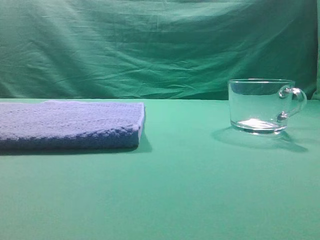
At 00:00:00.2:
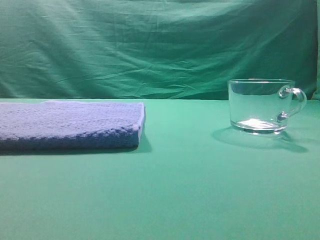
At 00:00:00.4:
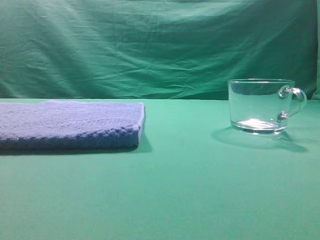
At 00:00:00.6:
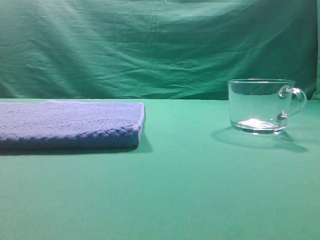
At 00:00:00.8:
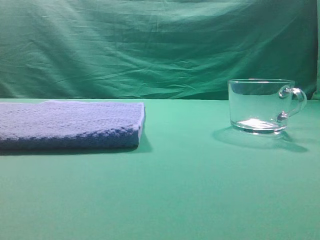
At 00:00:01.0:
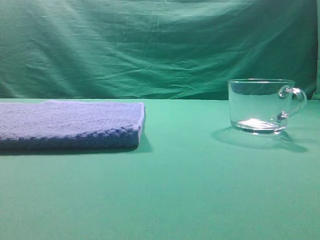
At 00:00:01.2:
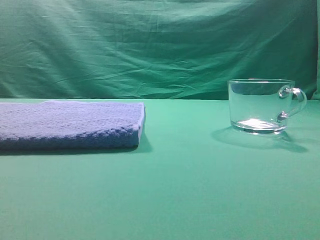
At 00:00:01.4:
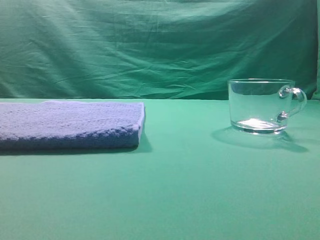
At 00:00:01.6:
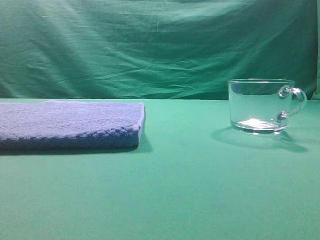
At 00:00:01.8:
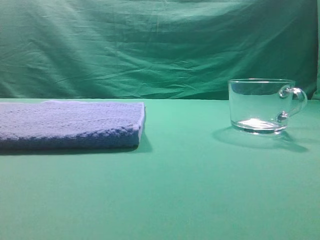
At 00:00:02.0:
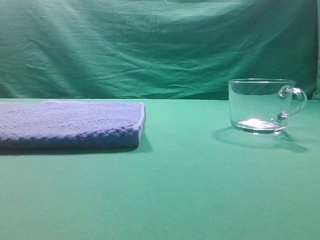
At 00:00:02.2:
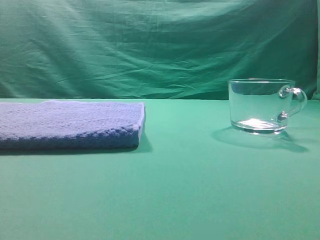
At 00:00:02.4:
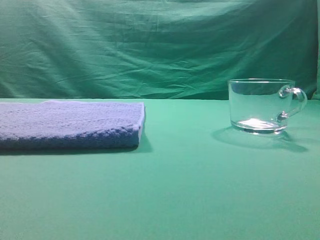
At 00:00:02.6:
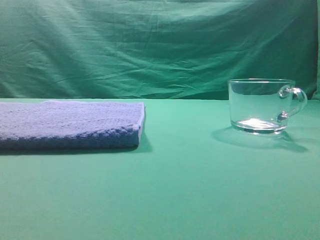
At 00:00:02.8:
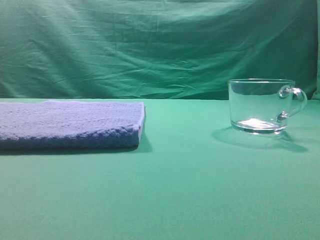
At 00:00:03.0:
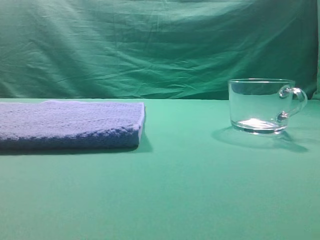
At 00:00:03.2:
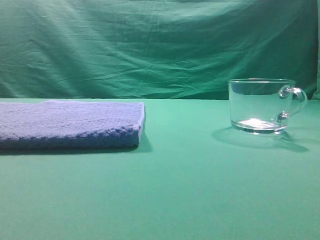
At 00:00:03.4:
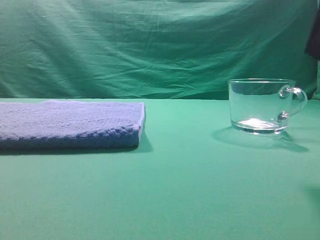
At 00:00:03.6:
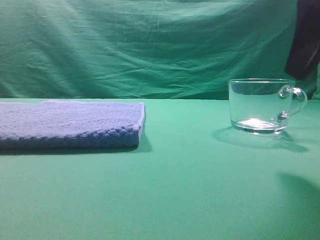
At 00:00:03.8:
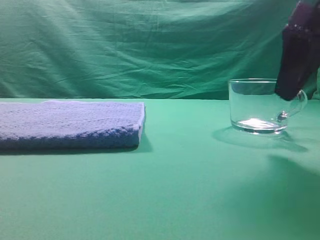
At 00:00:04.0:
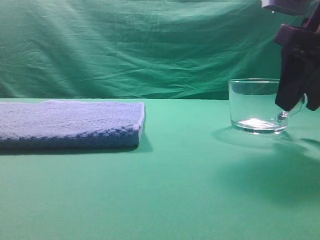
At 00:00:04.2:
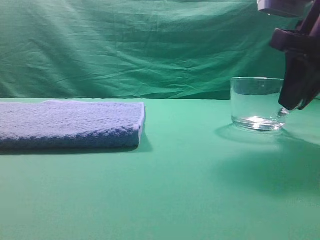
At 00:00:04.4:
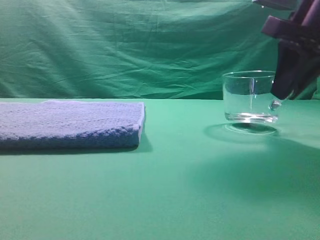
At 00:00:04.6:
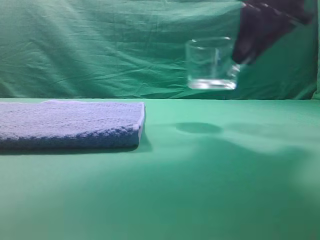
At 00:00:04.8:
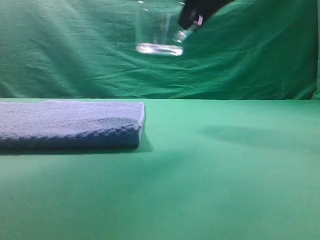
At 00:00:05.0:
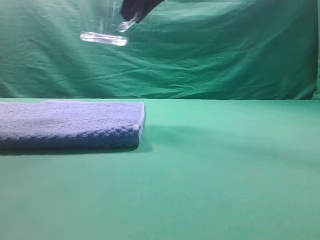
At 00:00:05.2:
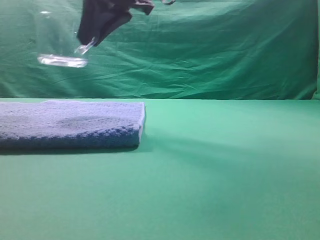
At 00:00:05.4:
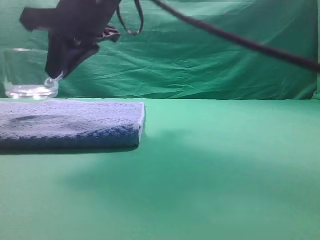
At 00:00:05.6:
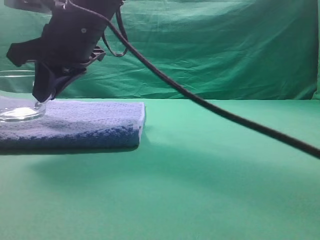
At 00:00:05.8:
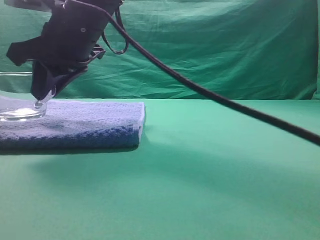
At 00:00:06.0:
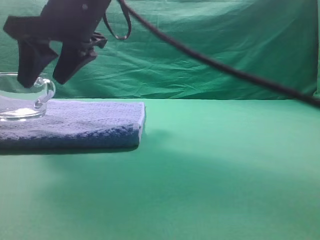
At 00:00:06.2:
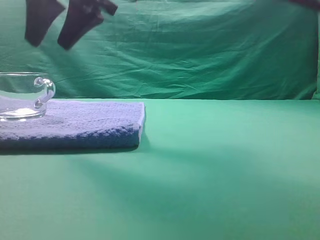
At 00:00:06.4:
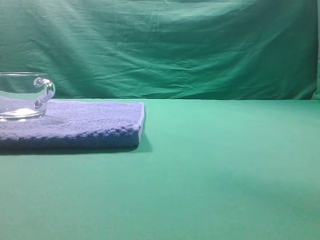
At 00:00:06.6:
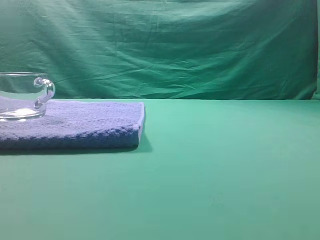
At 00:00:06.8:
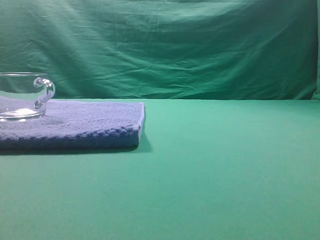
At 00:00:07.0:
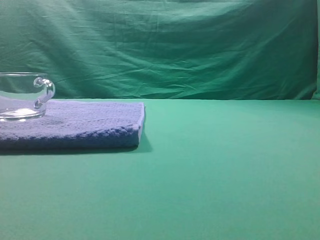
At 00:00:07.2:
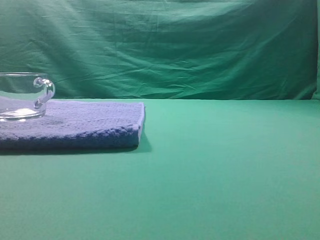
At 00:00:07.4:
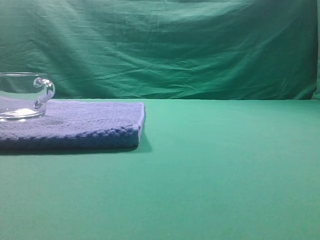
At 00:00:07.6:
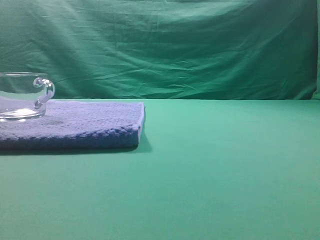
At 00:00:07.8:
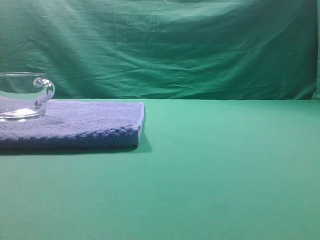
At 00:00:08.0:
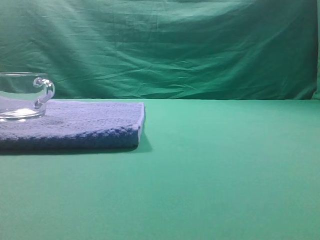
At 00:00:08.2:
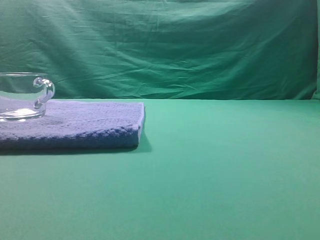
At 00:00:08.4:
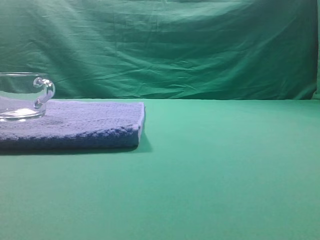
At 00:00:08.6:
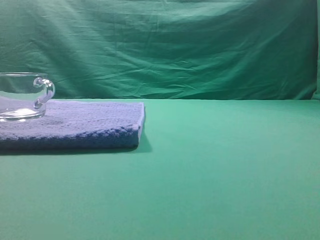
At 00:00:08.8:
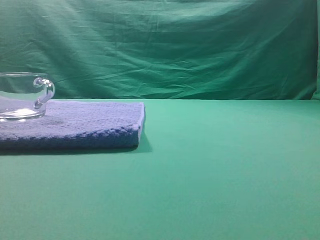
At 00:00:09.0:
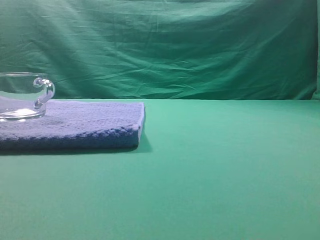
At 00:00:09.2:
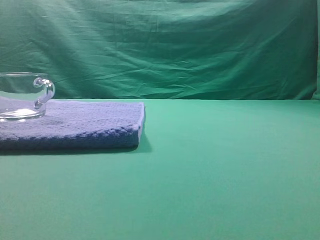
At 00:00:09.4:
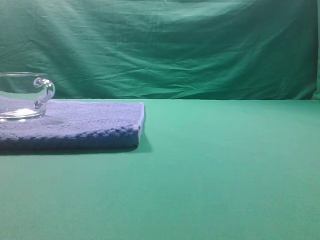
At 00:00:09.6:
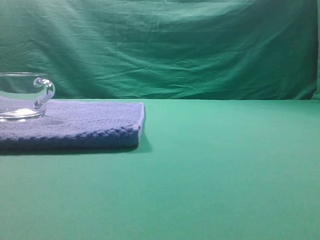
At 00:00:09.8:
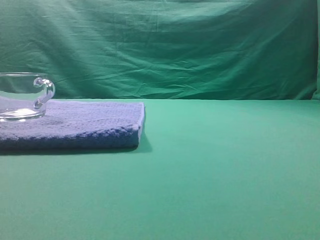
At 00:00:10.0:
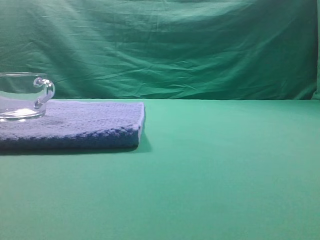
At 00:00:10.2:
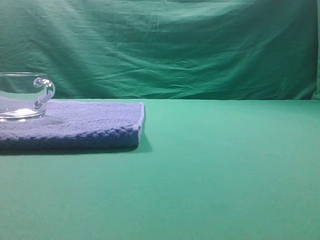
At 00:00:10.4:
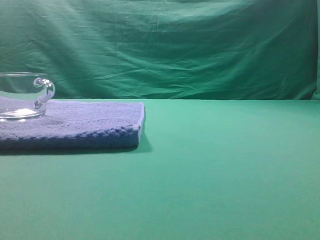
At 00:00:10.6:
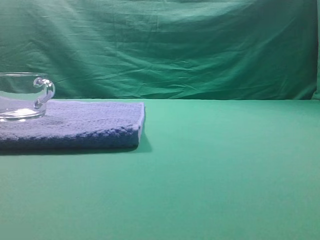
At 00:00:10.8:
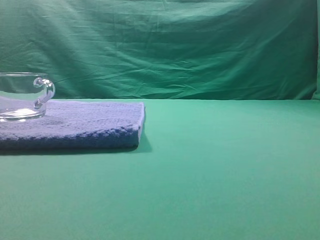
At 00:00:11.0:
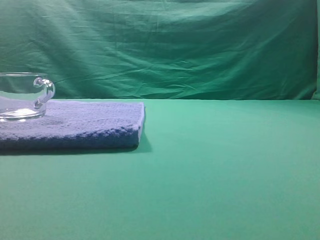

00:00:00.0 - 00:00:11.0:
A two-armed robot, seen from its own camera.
Task of the whole recording: grasp the transparent glass cup and place it within the blue towel.
Step, 00:00:00.0 - 00:00:04.4: Grasp the transparent glass cup.
Step, 00:00:04.6 - 00:00:06.0: Place the glass cup on the blue zone.
